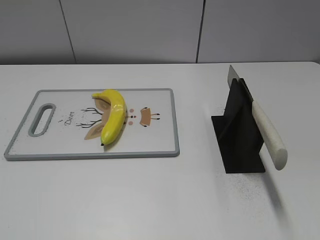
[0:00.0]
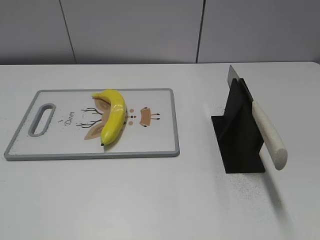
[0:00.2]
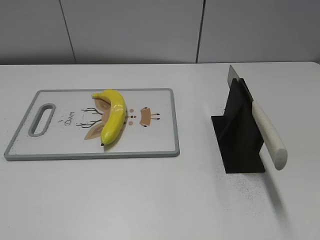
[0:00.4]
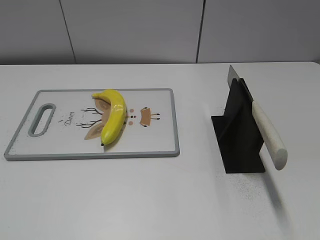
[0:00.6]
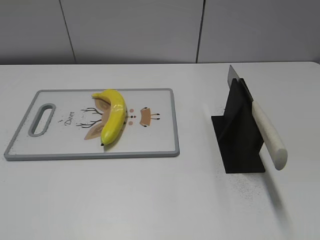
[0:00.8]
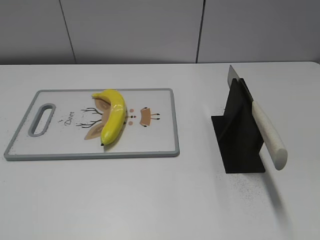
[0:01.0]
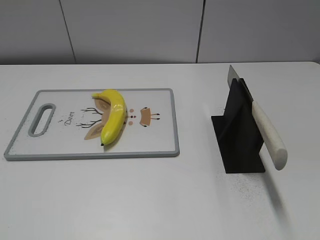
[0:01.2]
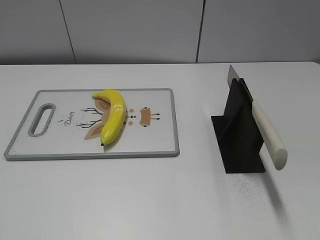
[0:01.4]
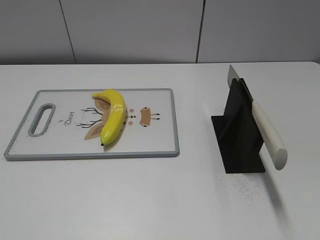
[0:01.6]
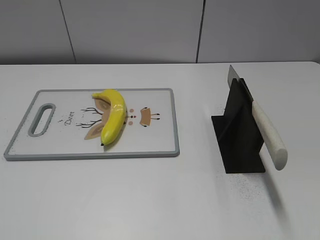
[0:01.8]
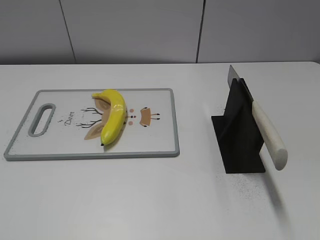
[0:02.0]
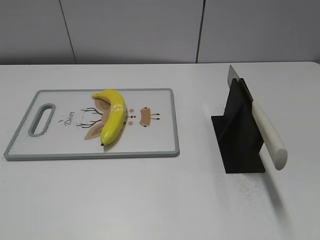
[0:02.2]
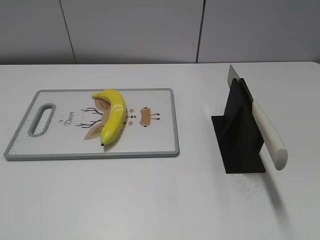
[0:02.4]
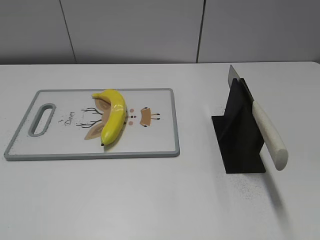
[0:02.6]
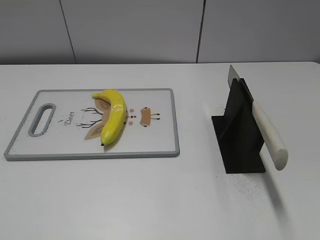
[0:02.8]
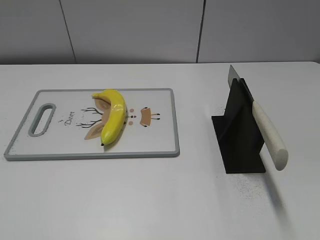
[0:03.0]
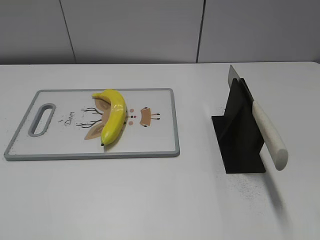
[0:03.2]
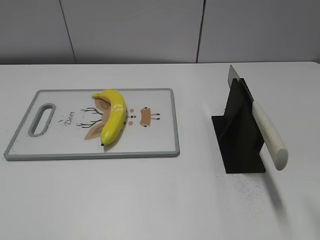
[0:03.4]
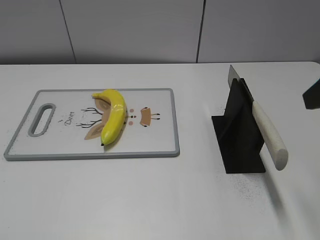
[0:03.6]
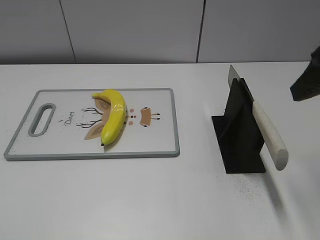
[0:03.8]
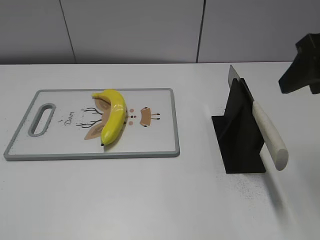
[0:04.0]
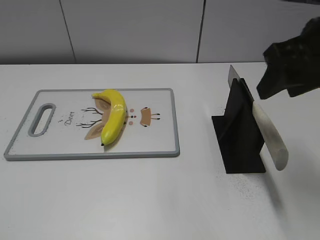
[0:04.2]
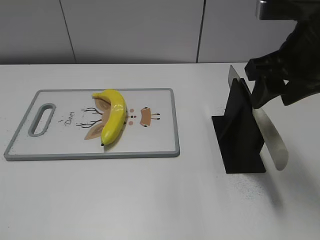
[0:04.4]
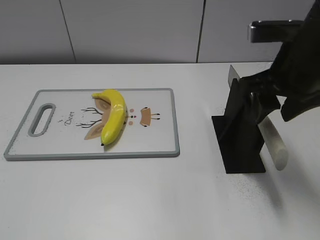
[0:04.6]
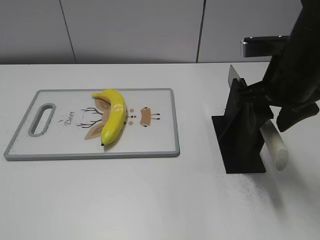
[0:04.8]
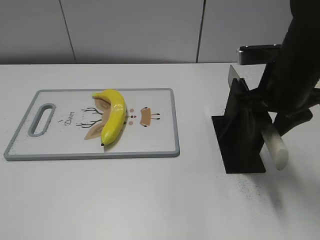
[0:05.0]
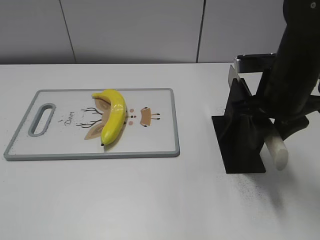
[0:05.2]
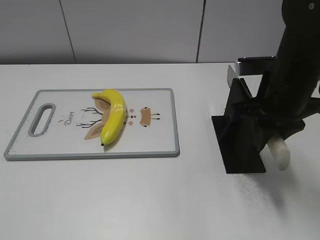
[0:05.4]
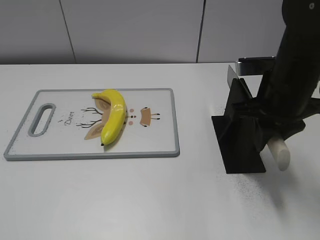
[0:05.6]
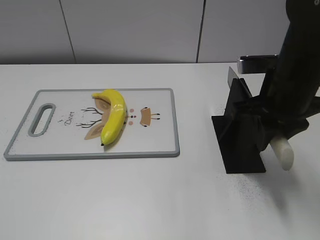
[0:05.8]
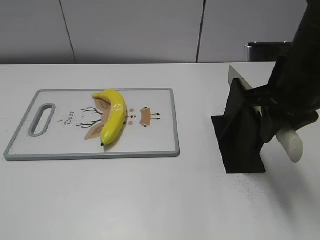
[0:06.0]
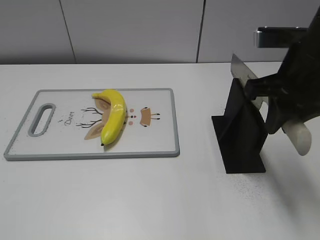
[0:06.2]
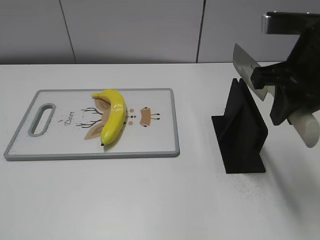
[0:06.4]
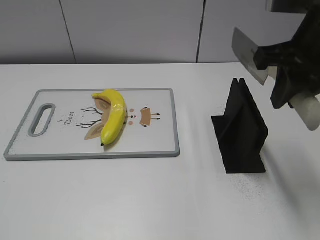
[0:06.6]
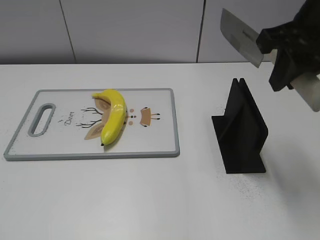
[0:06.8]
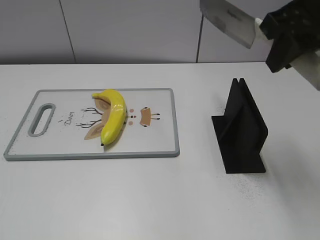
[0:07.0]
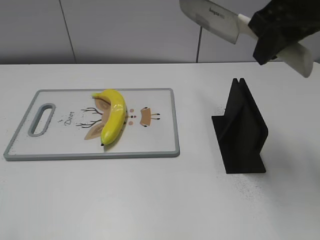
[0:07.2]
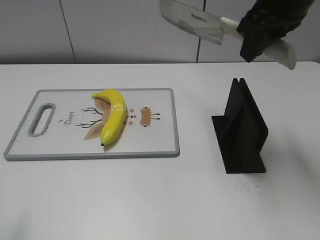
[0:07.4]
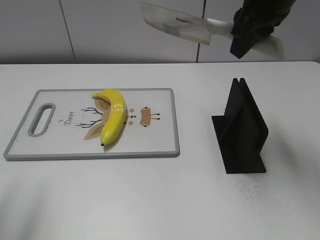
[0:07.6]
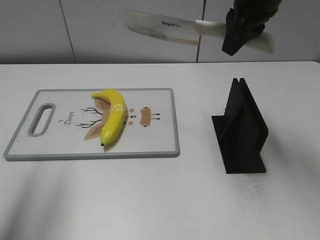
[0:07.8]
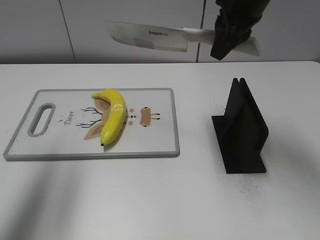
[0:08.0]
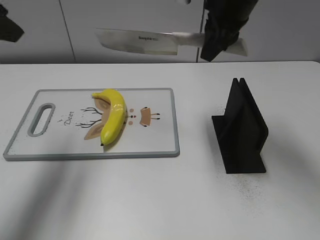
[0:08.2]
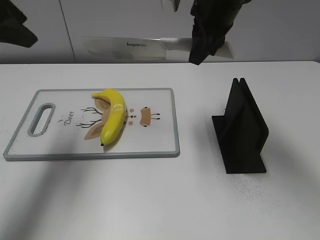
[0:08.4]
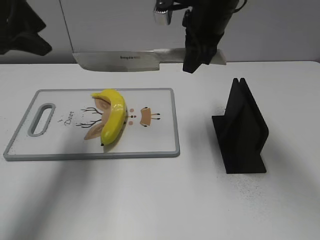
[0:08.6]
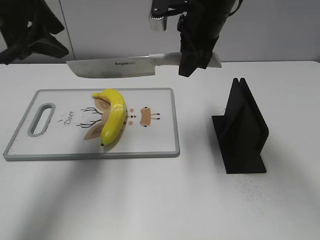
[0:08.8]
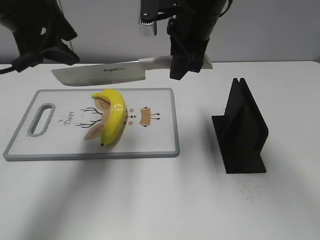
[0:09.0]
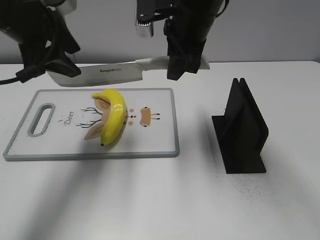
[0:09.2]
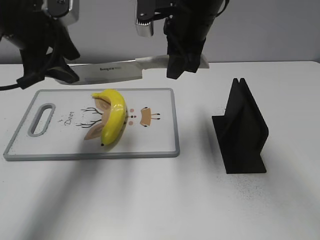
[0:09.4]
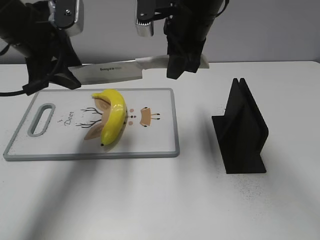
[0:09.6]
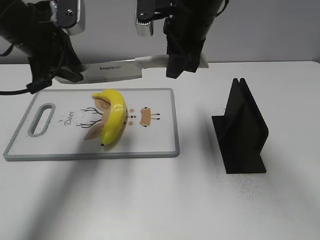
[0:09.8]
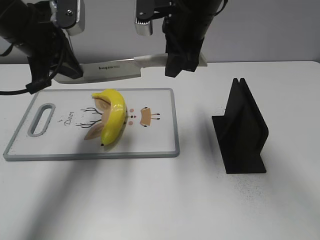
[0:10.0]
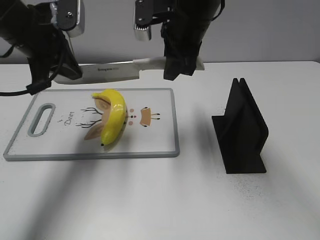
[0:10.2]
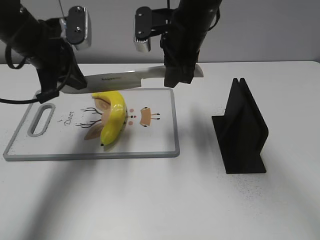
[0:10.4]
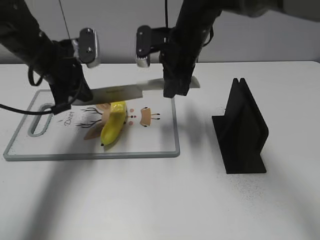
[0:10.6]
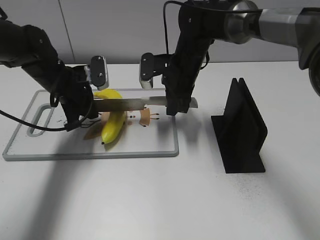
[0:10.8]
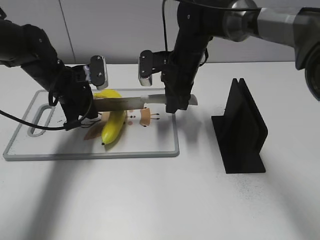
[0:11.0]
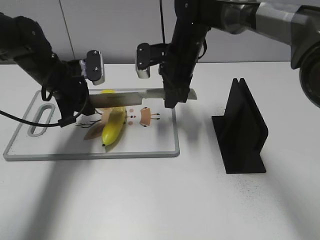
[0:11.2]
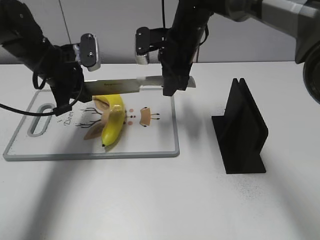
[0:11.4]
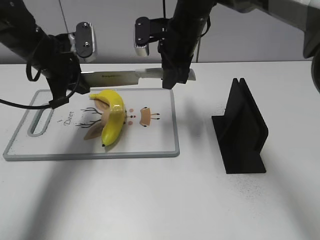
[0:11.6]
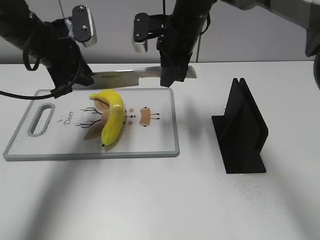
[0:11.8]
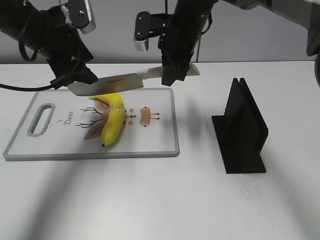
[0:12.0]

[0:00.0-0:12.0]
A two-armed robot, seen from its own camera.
Task of the whole recording: cut plastic banana.
Step, 0:00.0 to 0:06.8: Grab the knife handle with your right hand.
0:03.0 to 0:04.4: The right gripper is displaced forward and to the left by about 20 cm.
0:04.4 to 0:06.0: The right gripper closes.
0:06.0 to 0:07.6: The right gripper goes approximately 10 cm upward and forward. Meanwhile the left gripper travels forward and upward by roughly 15 cm.
0:07.6 to 0:09.0: The right gripper goes about 10 cm to the left and downward; the left gripper is displaced forward and to the right by approximately 20 cm.
0:09.0 to 0:10.4: The left gripper heads downward, covering approximately 10 cm, and closes.
0:10.4 to 0:12.0: The right gripper moves roughly 10 cm downward and comes back; the left gripper reaches about 10 cm downward, then returns, and opens its fingers.

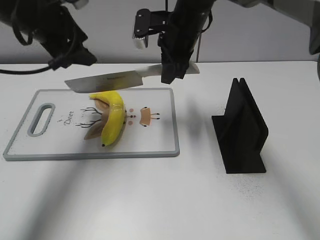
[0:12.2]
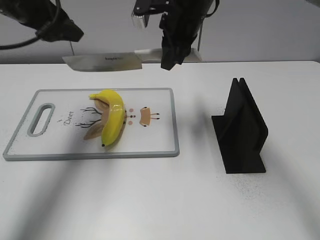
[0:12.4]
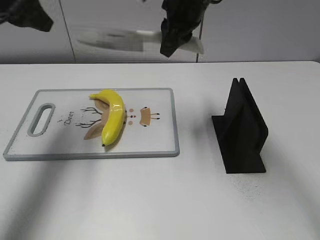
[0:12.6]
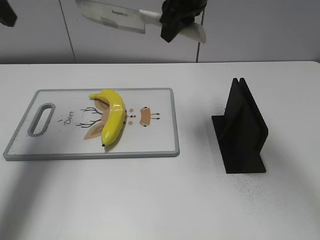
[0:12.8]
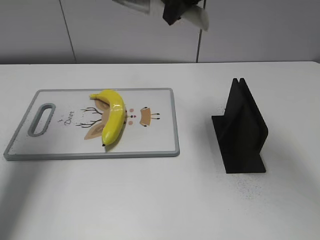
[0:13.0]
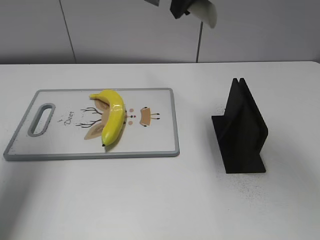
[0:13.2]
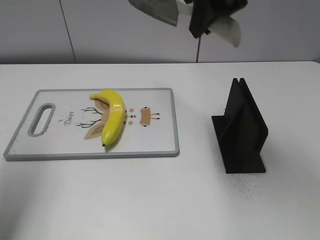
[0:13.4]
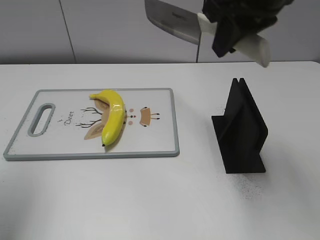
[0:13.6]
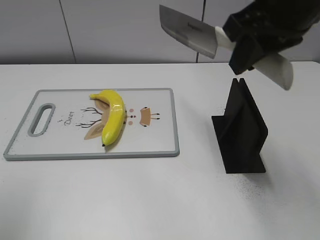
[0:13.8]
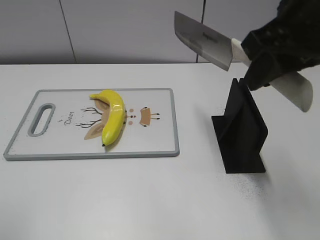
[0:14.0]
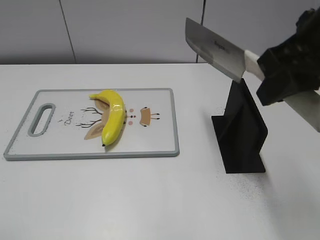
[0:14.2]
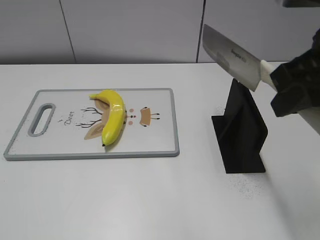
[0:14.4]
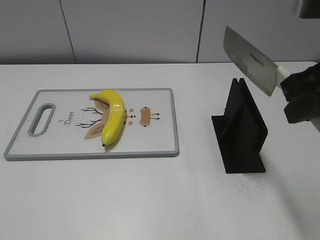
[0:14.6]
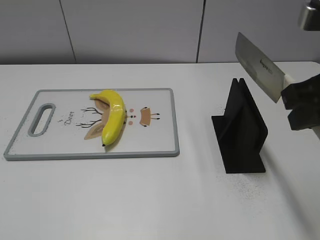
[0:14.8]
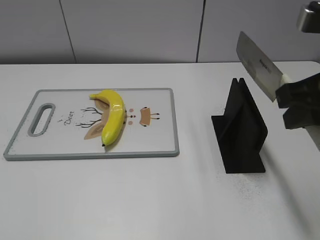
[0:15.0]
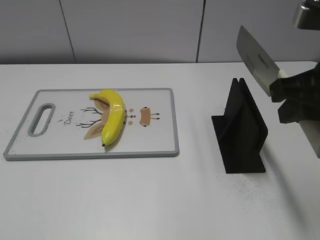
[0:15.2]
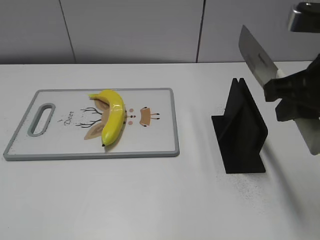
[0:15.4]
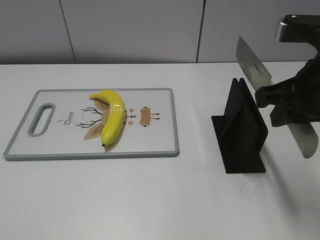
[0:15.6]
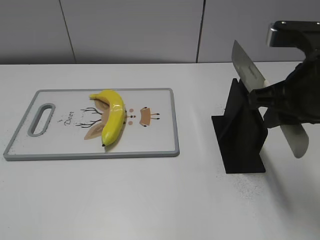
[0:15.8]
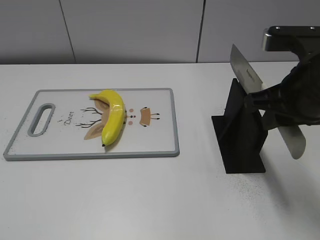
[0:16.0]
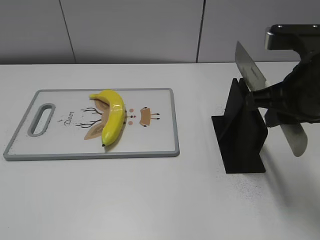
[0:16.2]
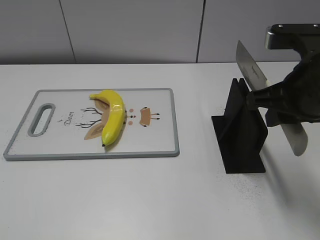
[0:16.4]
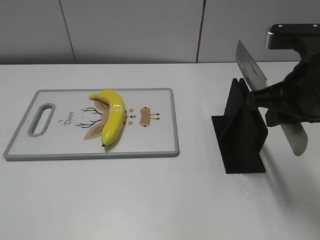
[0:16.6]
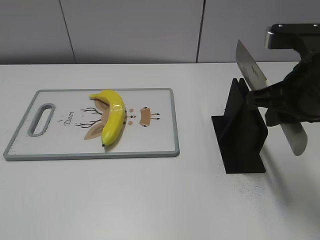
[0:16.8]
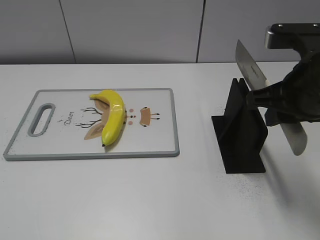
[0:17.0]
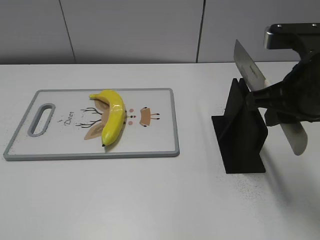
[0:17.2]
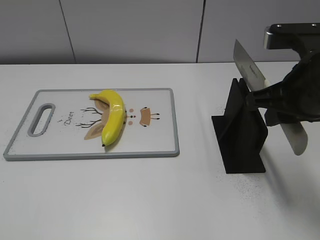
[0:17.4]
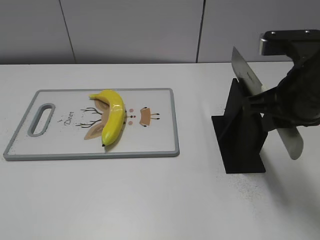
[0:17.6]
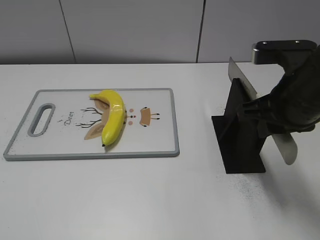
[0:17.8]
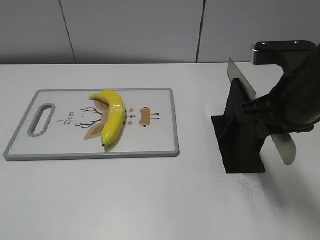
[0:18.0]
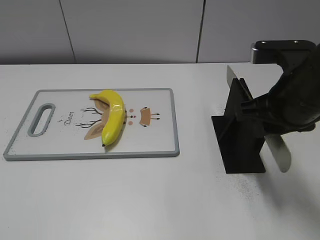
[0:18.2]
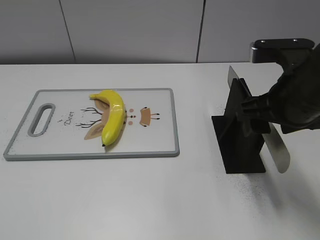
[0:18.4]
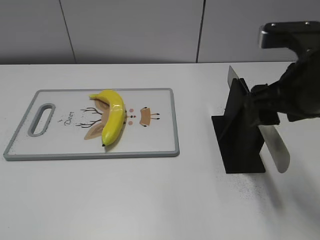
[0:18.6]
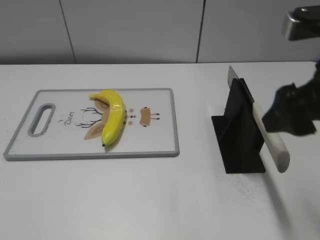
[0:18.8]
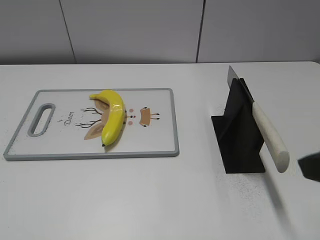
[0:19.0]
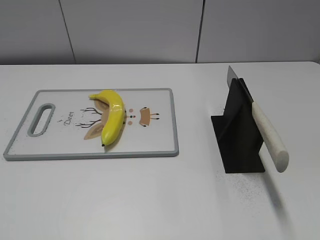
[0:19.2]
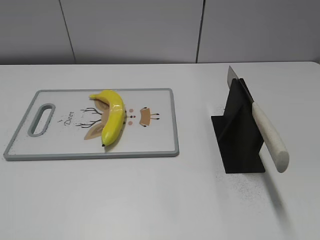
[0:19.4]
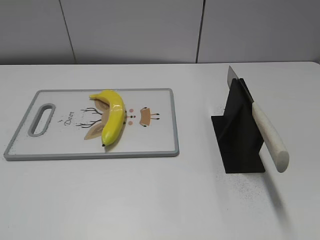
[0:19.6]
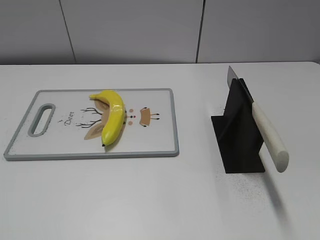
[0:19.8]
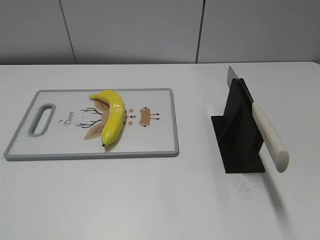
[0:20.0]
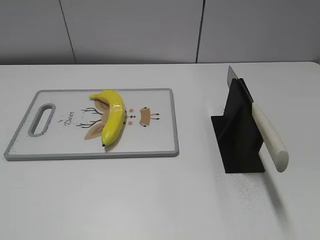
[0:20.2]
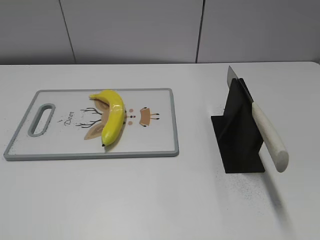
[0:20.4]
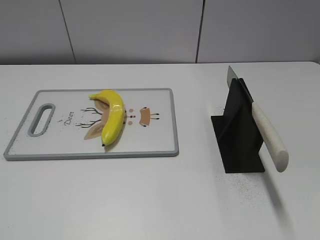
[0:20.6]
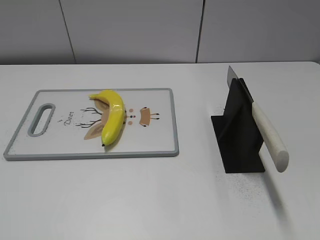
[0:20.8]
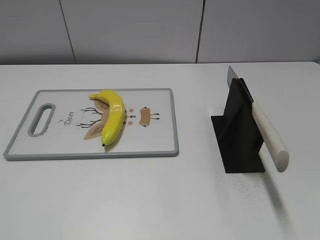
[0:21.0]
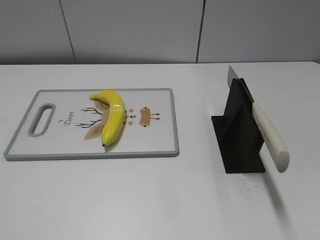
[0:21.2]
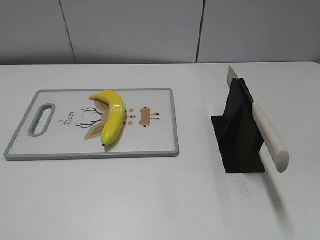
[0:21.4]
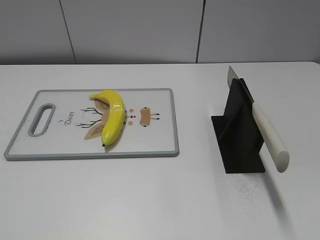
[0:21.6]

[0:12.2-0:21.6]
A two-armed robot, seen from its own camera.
Task of the whole recording: cut plastic banana.
Step, 0:12.8 to 0:13.6: Cut the banana with your right hand.
Step, 0:13.8 to 0:14.4: Lift the knife with your right hand.
Step, 0:14.6 to 0:21.6: Place the knife on the storage rack with your right hand.
0:12.2 to 0:13.8: The left gripper heads backward and to the left, covering some 25 cm, while the right gripper moves backward, upward and to the right, approximately 25 cm.
0:13.8 to 0:15.4: The left gripper is displaced backward and downward by roughly 20 cm; the right gripper goes about 10 cm downward, backward and to the right.
0:15.4 to 0:17.0: The grippers stay close to where they were, moving slightly.
0:17.0 to 0:18.4: The right gripper opens.
0:18.4 to 0:20.0: The right gripper goes about 25 cm backward and to the right.
